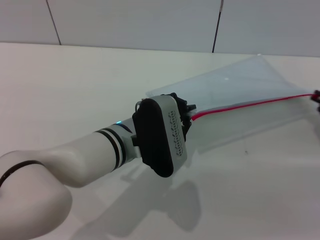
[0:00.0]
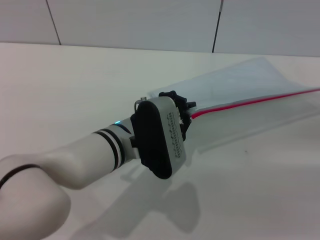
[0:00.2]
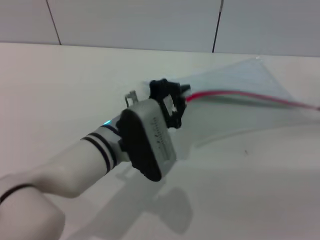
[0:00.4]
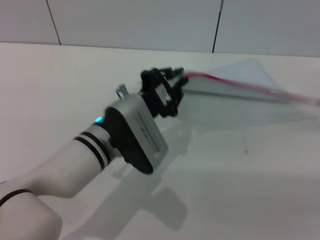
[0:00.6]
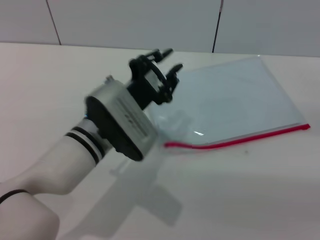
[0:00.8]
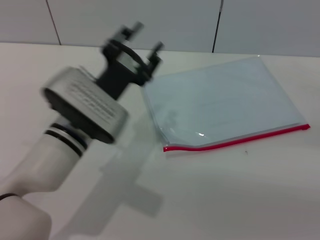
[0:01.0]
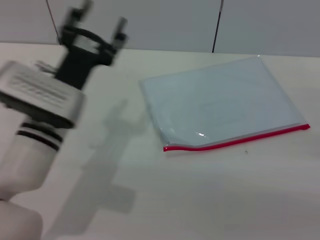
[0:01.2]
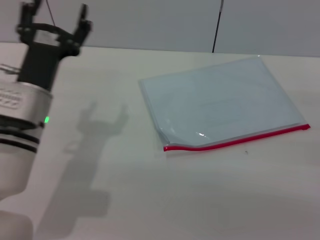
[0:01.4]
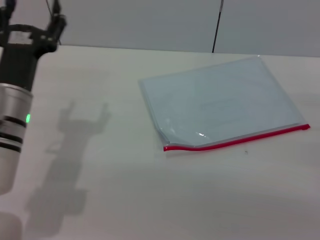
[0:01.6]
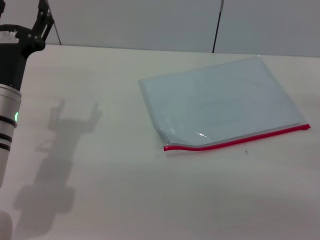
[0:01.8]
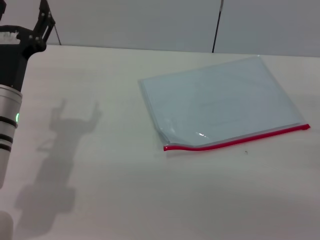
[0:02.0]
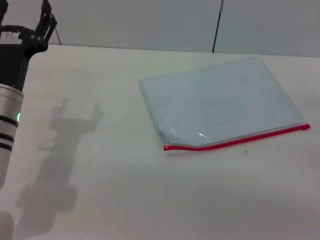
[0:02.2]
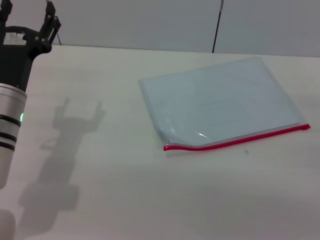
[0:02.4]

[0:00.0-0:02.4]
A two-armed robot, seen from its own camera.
Step, 0:00.6 to 0:02.0: Place the transparent plastic bag.
0:00.0 to 0:01.2: The left gripper travels to the left by some 10 cm, and opens. The right gripper heads backward, covering roughly 5 cm, and opens.
0:01.2 to 0:02.4: The left gripper moves to the left, approximately 5 cm, and opens. Meanwhile the right gripper opens.
